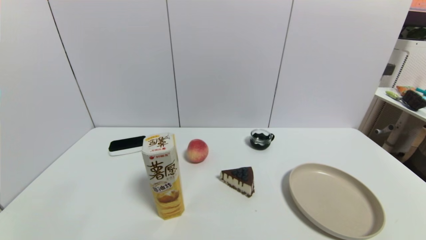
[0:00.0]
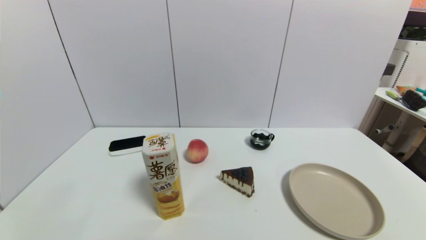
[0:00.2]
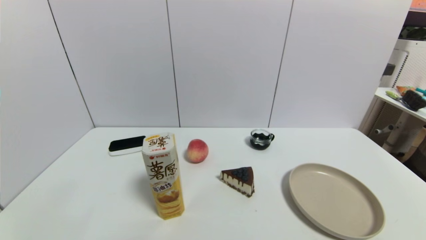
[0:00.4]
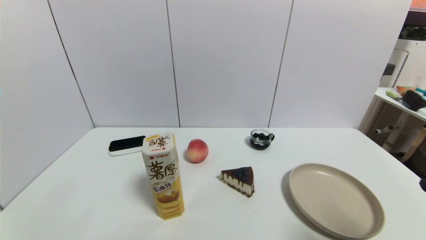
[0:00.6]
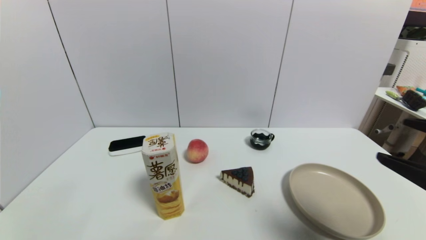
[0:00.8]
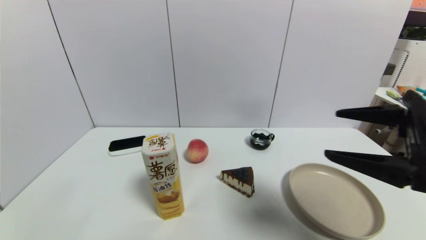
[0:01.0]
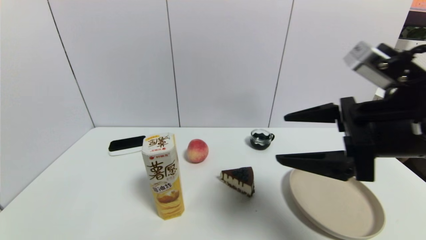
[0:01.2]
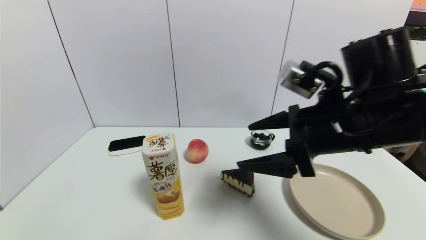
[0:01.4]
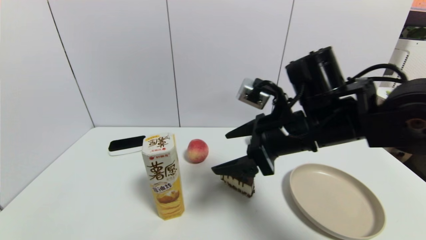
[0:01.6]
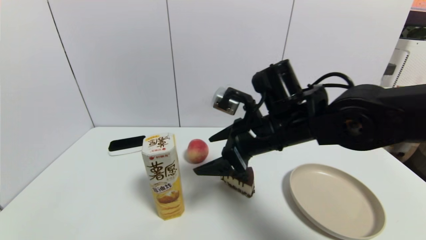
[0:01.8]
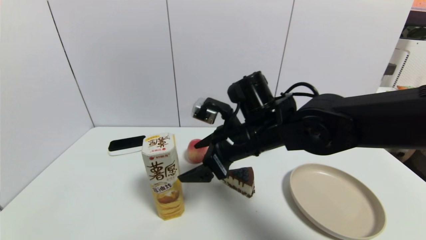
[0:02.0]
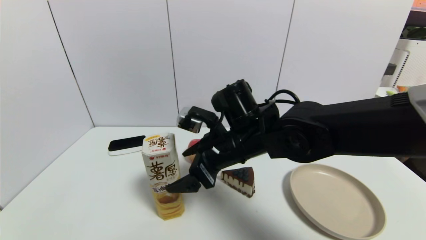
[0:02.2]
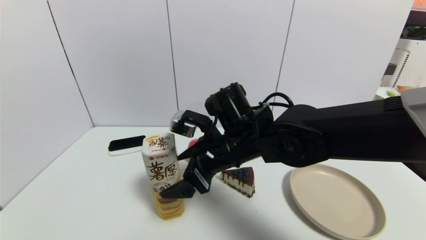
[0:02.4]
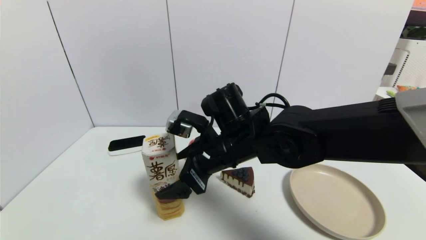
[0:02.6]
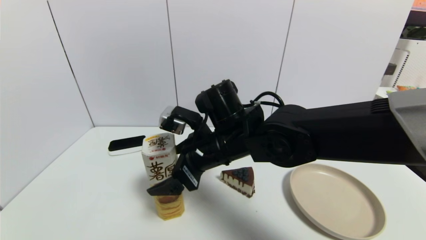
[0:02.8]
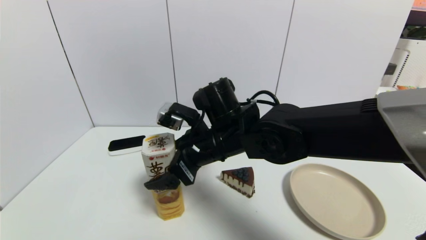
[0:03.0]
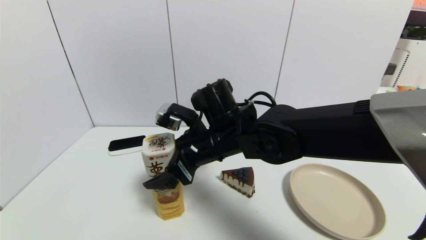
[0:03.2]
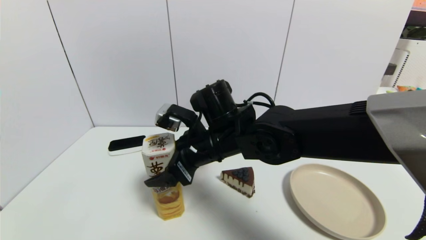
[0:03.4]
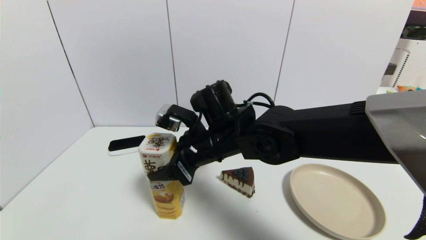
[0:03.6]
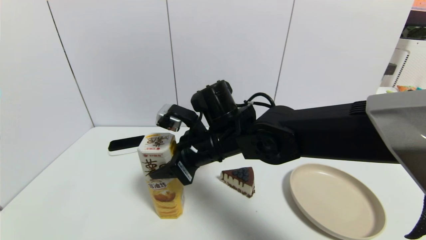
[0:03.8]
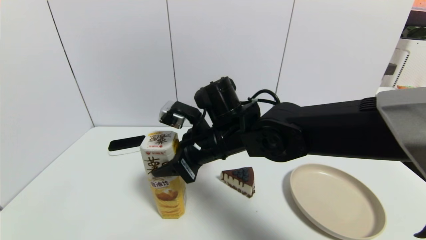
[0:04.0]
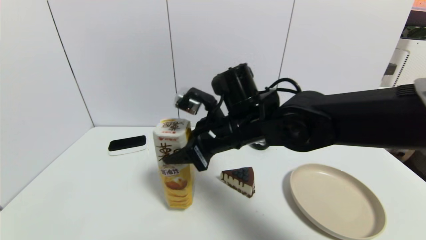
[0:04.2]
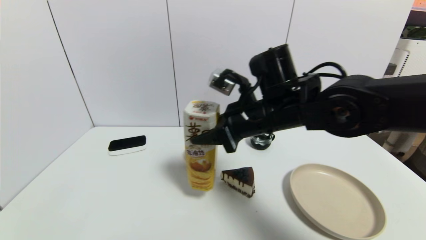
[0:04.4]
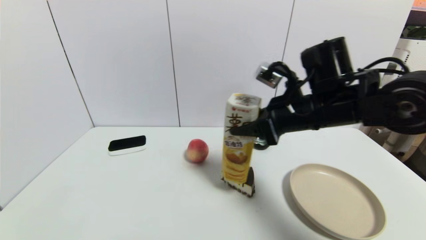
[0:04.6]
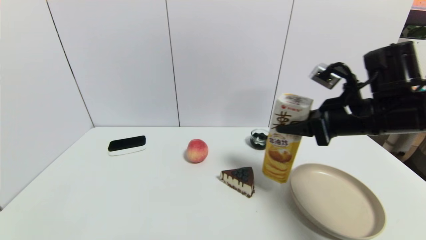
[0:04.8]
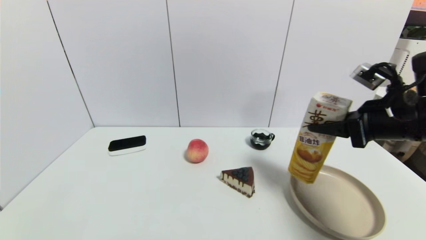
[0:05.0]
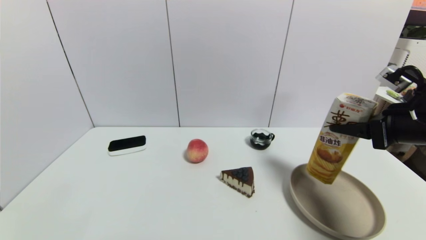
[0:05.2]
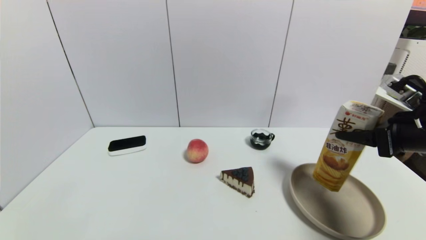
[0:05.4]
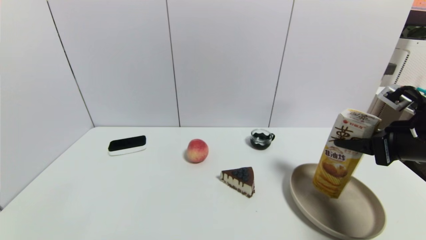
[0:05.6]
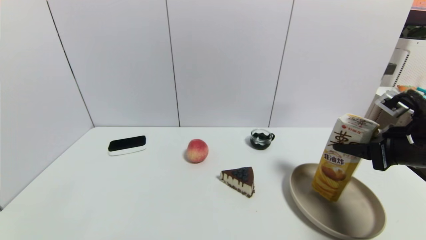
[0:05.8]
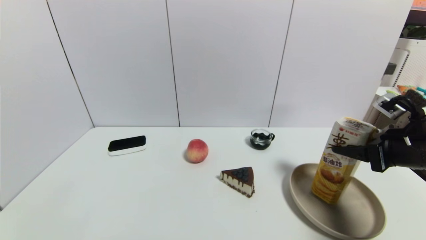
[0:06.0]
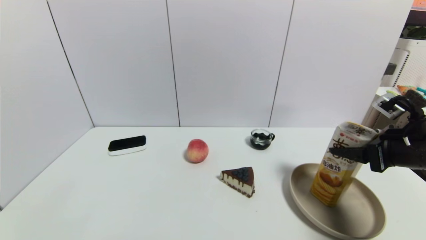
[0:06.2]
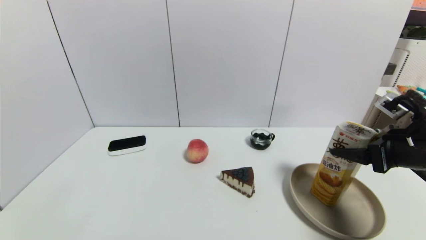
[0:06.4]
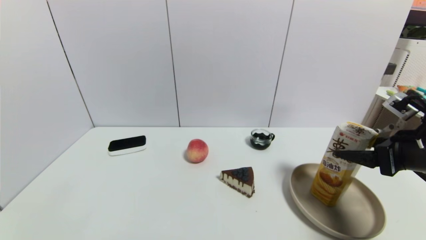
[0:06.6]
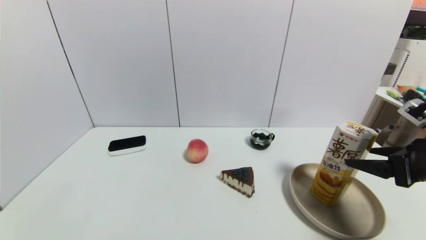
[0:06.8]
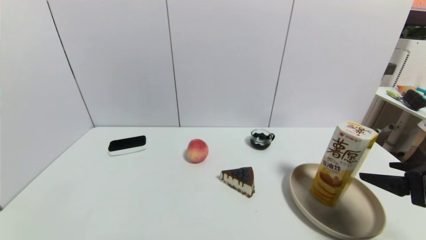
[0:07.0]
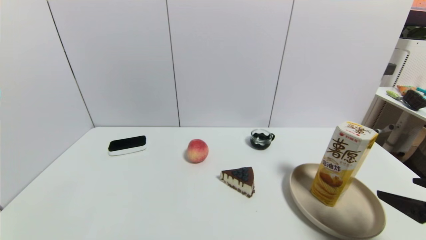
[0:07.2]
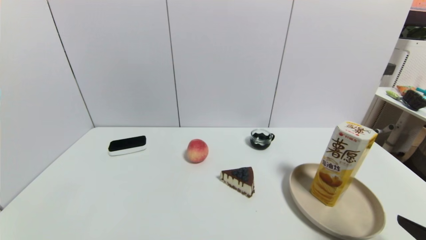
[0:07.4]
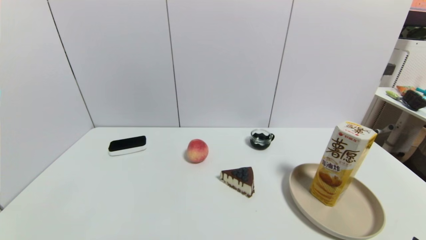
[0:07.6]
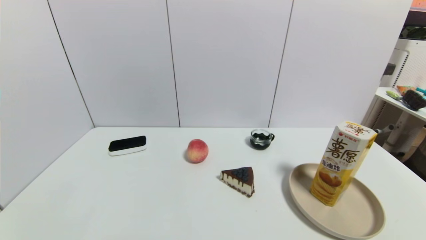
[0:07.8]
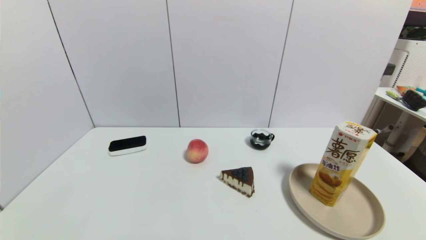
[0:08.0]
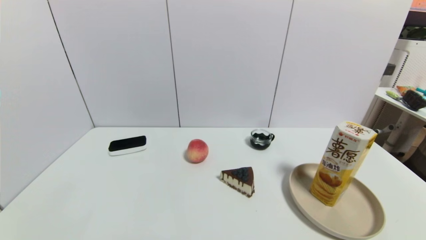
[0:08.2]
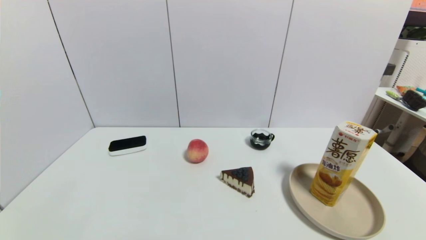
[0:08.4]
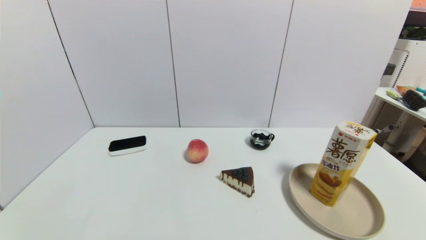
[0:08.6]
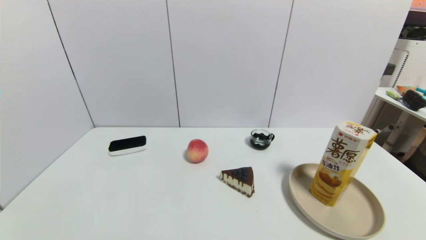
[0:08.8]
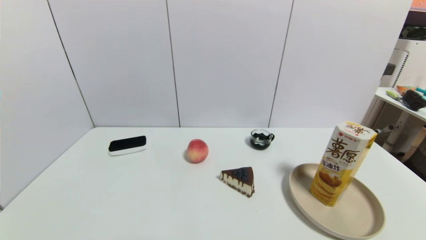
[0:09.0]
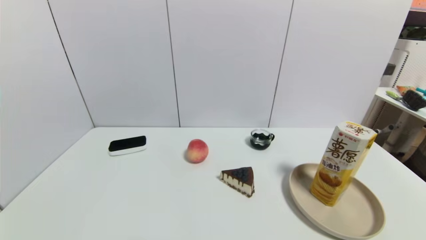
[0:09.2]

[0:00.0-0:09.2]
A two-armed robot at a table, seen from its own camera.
Task of the whole recording: use a gripper to pick the target object and place on the brown plate.
Step, 0:00.0 to 0:04.0: Grasp the potato chips with the right gripper.
Step, 0:04.2 to 0:06.8: Place the potato chips on the brown plate with the right gripper.
0:00.0 to 0:01.6: The right gripper is displaced forward, to the left and upward by roughly 40 cm.
0:01.6 to 0:03.0: The right gripper shifts roughly 10 cm to the left.
0:03.0 to 0:04.6: The right gripper travels to the right by some 15 cm, and closes up.
0:04.6 to 0:06.2: The right gripper shifts roughly 20 cm to the right, and opens up.
0:06.2 to 0:07.6: The right gripper heads backward, covering roughly 20 cm, and opens up.
